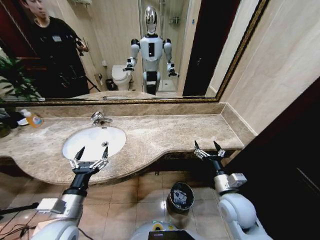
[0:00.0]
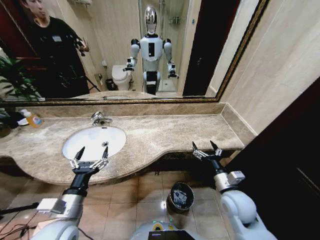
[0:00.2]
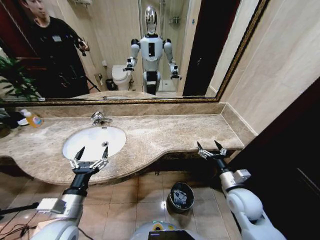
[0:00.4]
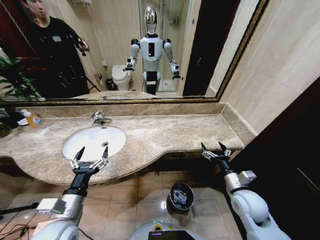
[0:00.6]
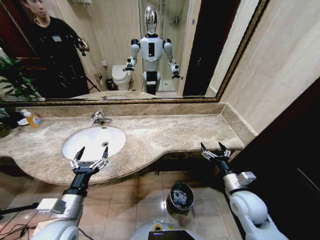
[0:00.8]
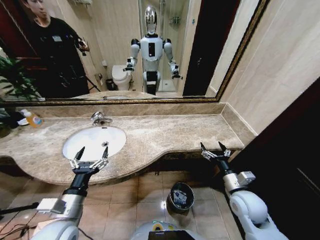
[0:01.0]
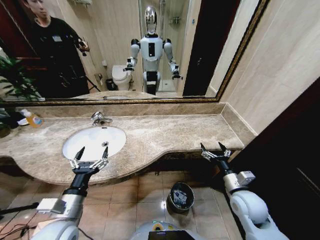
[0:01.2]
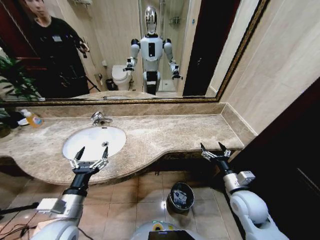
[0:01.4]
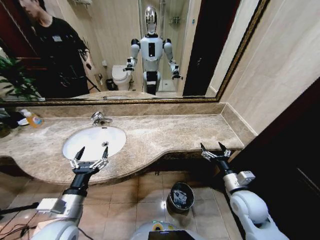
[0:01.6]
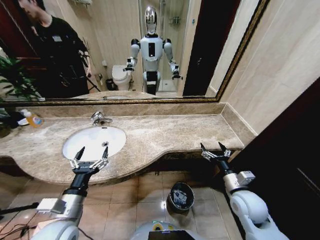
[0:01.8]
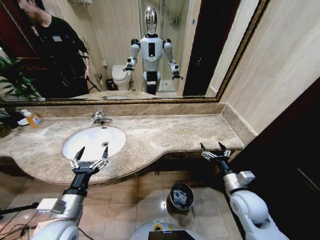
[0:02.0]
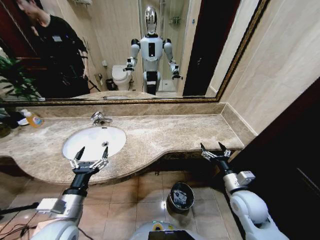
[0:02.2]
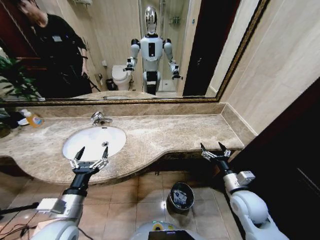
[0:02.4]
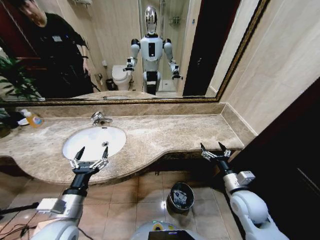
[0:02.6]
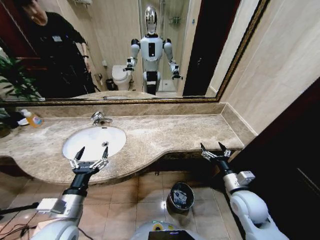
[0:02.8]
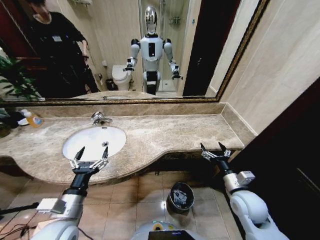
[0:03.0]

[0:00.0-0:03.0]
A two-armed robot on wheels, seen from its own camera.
Task of the whole recording: Pick up the trash from the sink and place it in the trash bin.
0:00.0 to 0:01.6: The right gripper heads to the right, covering about 5 cm.
0:01.6 to 0:03.0: Both grippers stay about where they are.

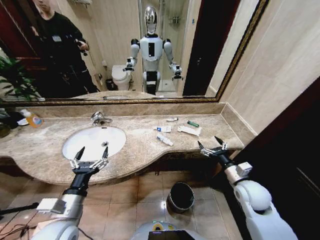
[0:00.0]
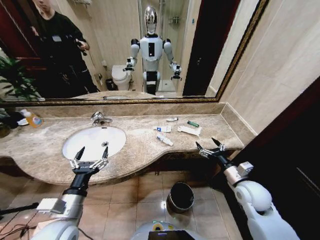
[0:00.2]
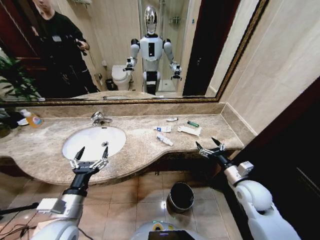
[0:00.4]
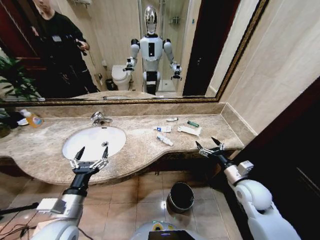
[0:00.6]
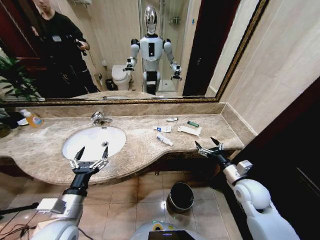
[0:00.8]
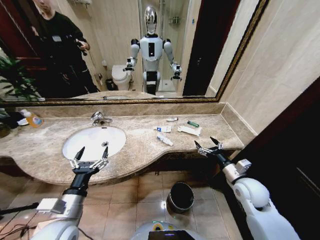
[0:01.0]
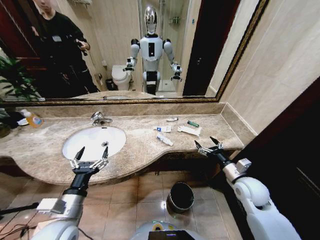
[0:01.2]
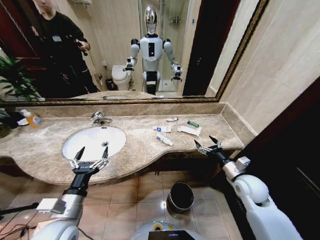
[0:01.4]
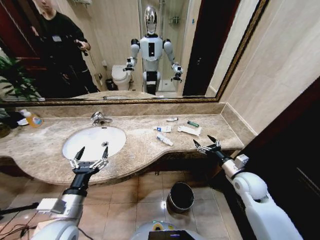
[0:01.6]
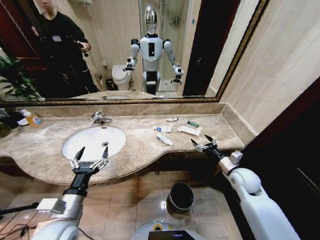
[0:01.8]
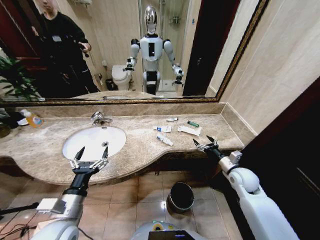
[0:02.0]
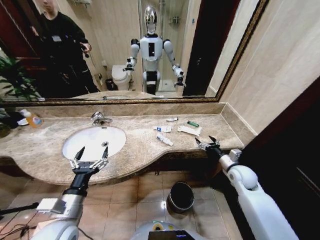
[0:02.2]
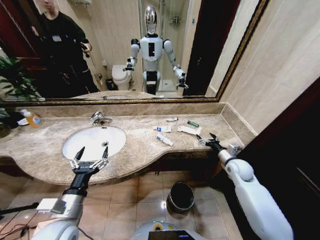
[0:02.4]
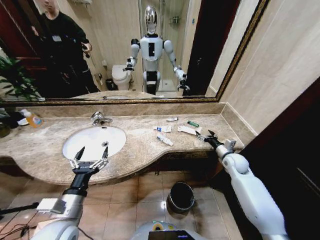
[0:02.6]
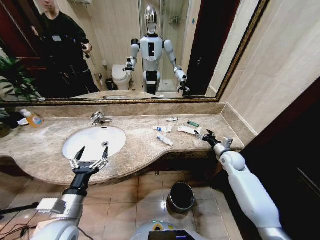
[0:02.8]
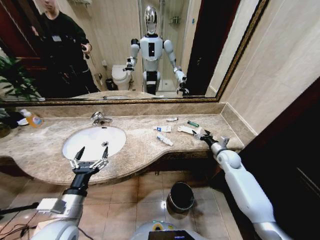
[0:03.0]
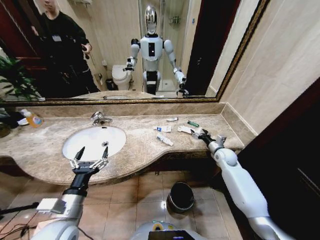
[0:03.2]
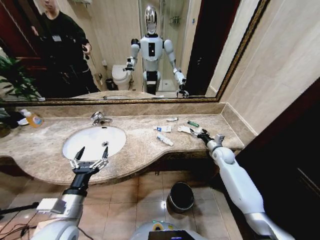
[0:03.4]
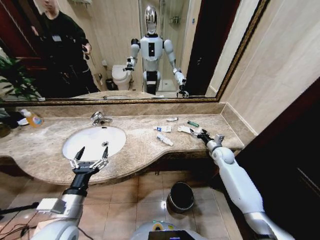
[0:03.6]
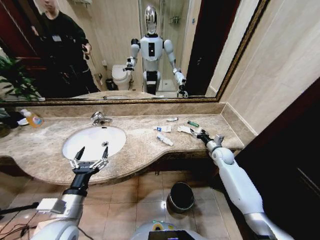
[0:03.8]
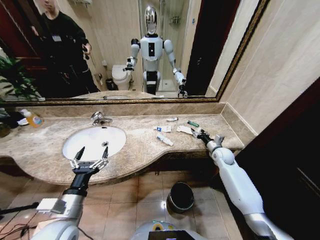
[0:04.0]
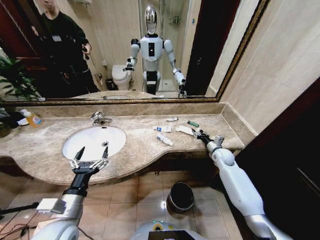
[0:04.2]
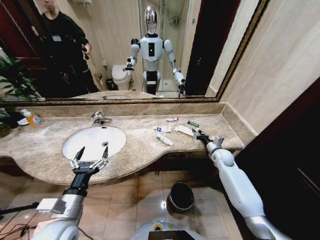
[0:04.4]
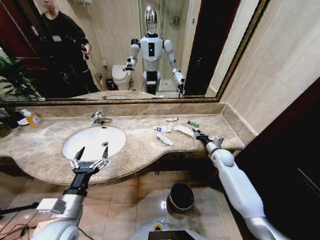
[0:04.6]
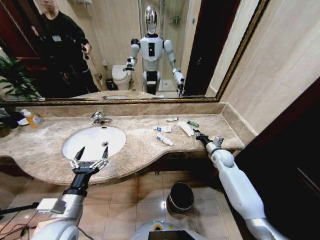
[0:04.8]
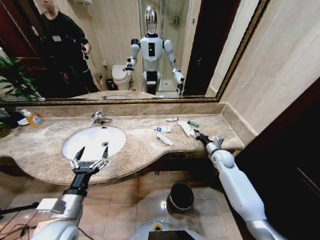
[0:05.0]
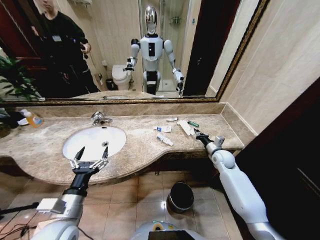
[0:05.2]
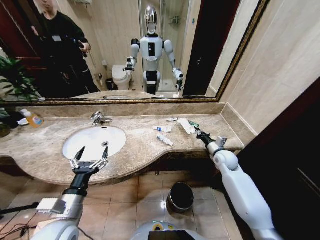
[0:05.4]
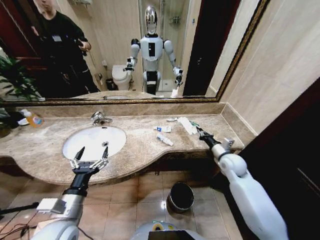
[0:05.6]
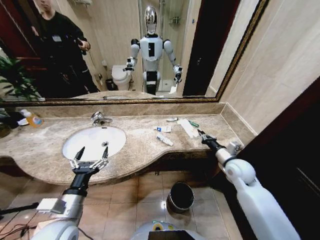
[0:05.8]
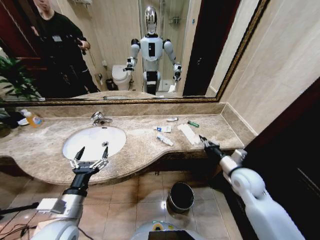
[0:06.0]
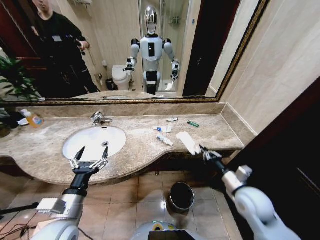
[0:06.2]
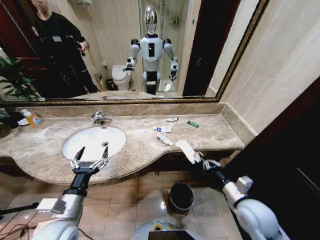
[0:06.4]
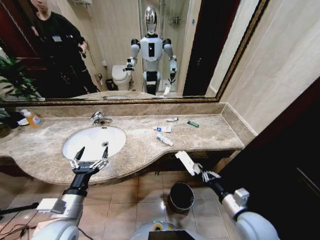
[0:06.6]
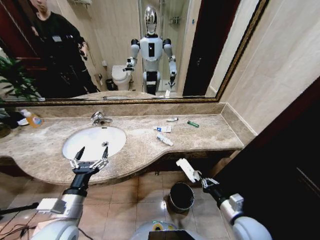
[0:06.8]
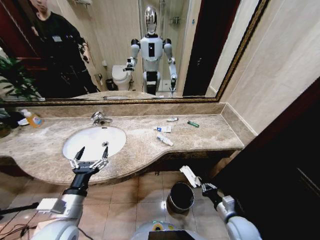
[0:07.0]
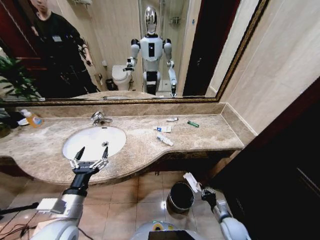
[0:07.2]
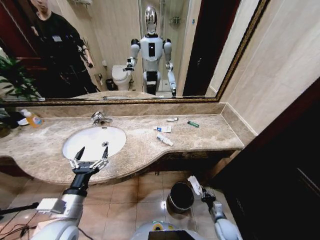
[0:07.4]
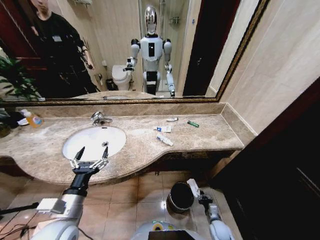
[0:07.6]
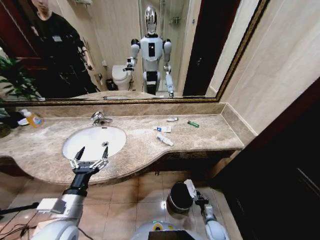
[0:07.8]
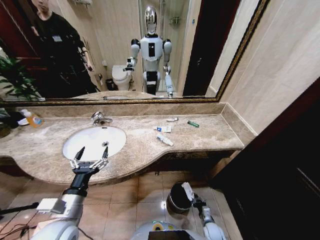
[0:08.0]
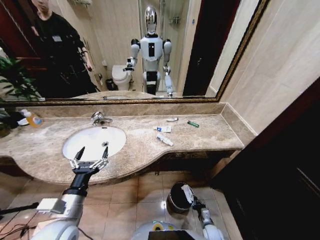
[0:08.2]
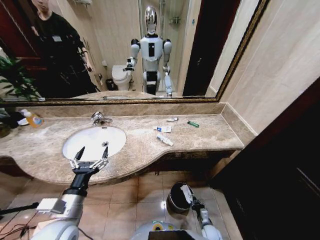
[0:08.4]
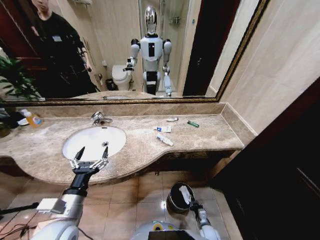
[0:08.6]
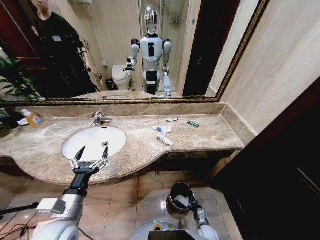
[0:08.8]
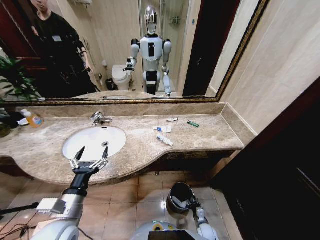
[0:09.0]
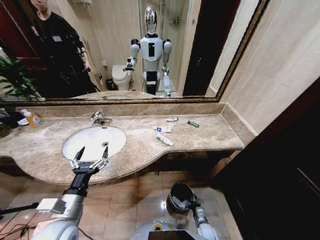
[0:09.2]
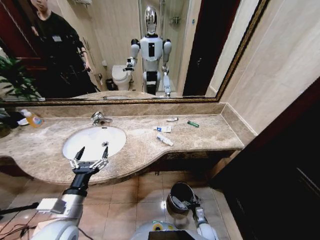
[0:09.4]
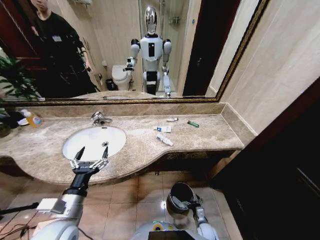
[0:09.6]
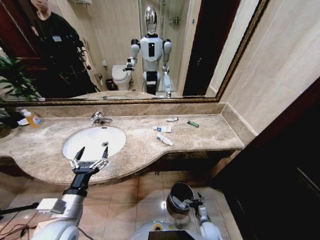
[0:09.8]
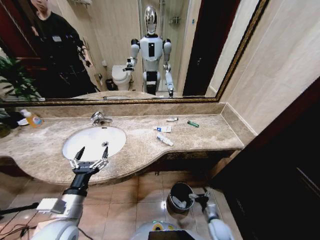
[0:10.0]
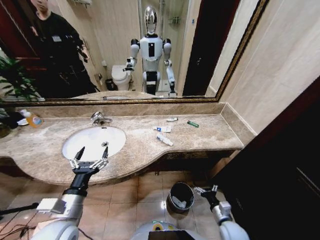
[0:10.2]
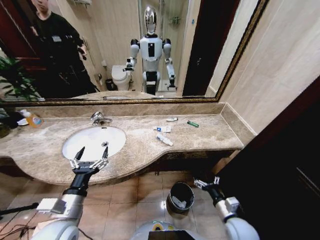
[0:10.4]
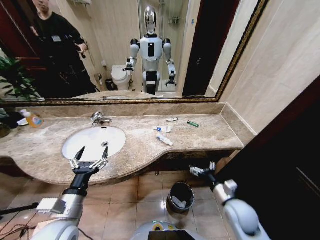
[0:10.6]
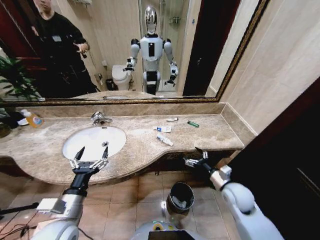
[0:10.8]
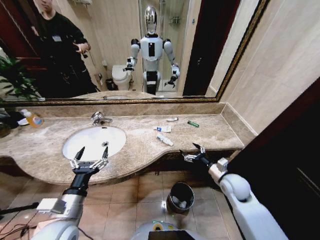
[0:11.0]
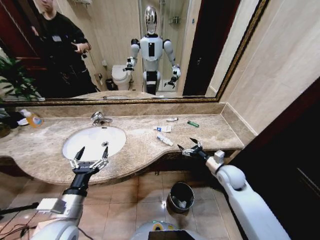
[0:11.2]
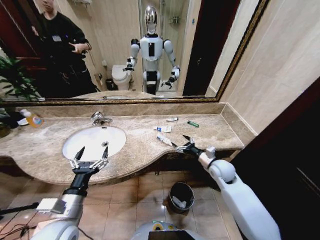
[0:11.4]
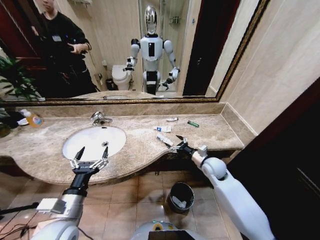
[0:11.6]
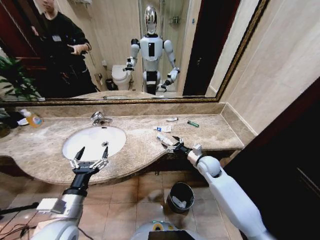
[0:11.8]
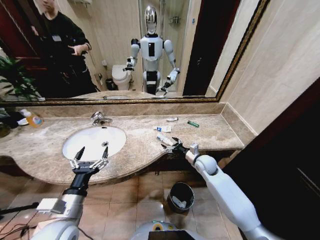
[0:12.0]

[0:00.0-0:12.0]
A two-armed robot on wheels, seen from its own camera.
Task of the whole recording: Pick up the trash from the sink and place it in the trash bin.
0:01.6 to 0:03.0: The right gripper shifts roughly 15 cm forward.
0:03.0 to 0:04.4: The right gripper closes its fingers.
0:04.4 to 0:06.0: The right gripper goes about 20 cm backward and upward, and closes.
0:06.0 to 0:07.6: The right gripper heads downward, covering some 35 cm.
0:07.6 to 0:09.0: The right gripper travels to the left by some 5 cm, and opens.
0:09.0 to 0:10.4: The right gripper moves upward, about 25 cm, and opens its fingers.
0:10.4 to 0:12.0: The right gripper is displaced forward by approximately 25 cm.

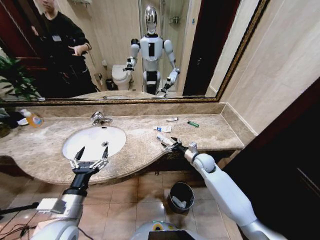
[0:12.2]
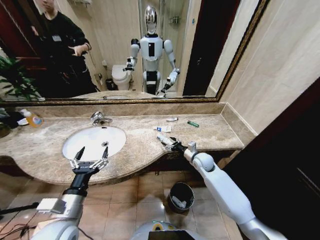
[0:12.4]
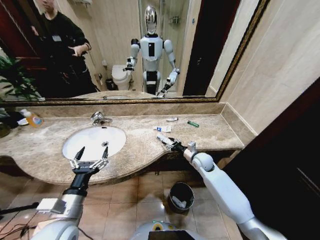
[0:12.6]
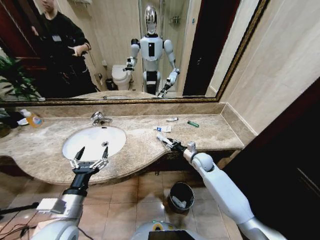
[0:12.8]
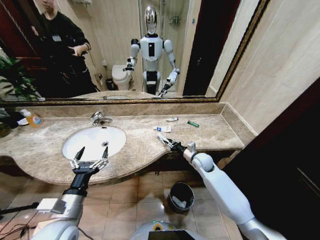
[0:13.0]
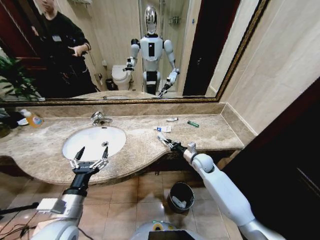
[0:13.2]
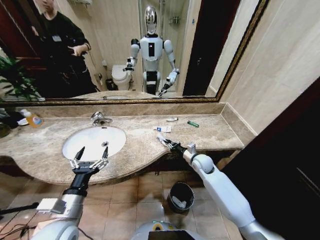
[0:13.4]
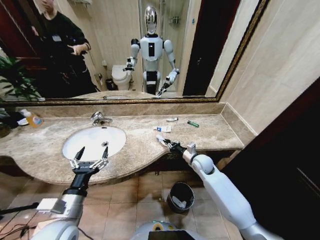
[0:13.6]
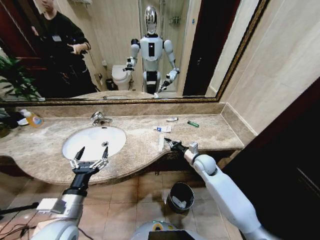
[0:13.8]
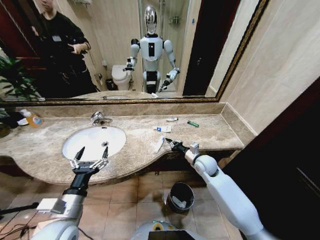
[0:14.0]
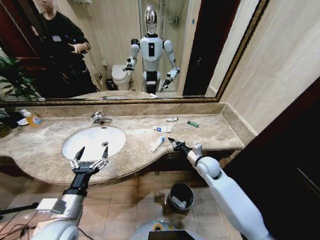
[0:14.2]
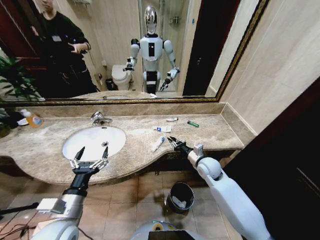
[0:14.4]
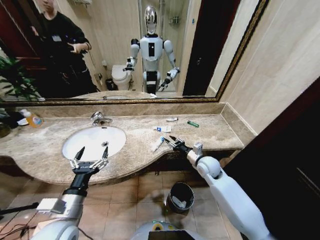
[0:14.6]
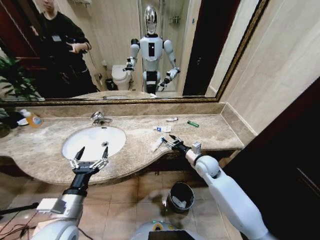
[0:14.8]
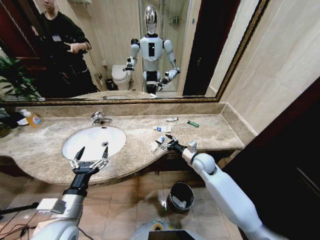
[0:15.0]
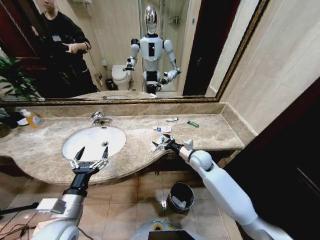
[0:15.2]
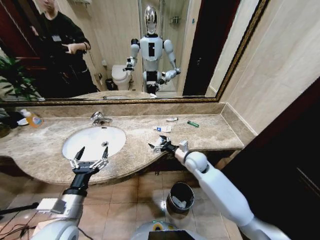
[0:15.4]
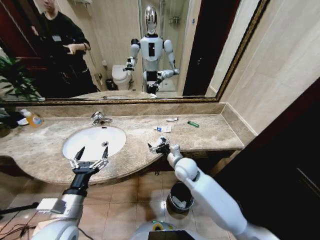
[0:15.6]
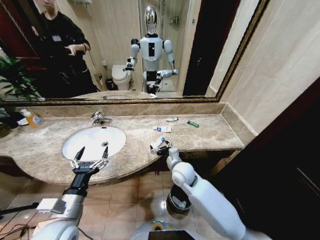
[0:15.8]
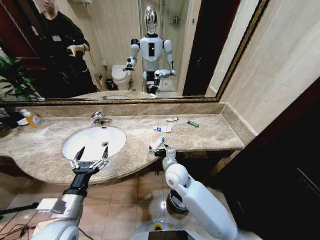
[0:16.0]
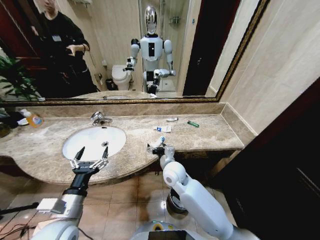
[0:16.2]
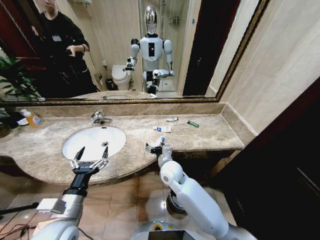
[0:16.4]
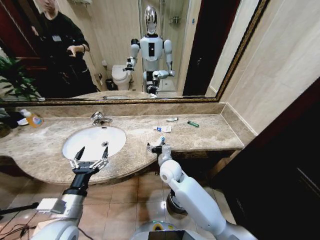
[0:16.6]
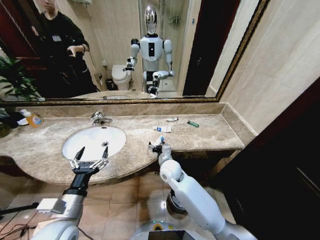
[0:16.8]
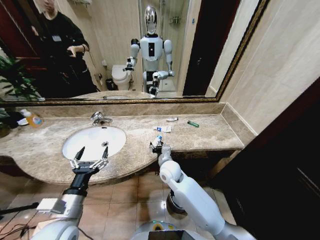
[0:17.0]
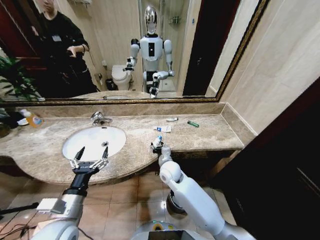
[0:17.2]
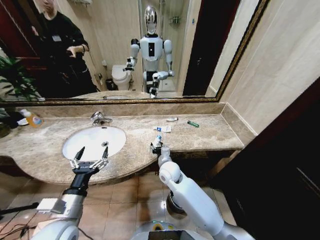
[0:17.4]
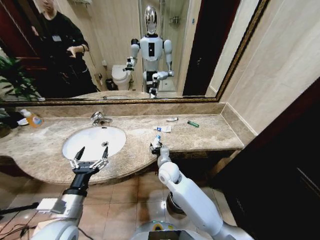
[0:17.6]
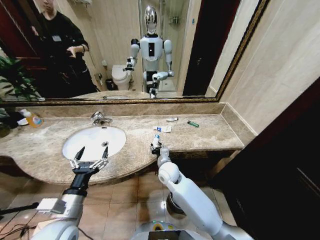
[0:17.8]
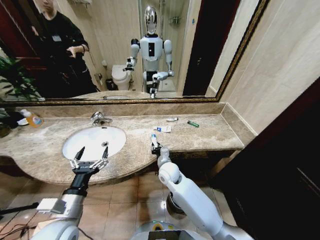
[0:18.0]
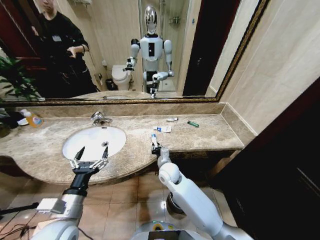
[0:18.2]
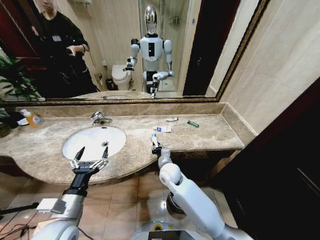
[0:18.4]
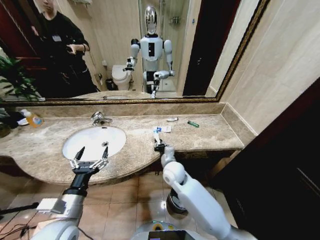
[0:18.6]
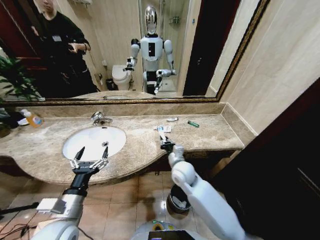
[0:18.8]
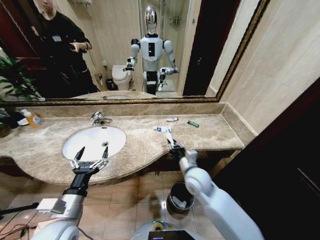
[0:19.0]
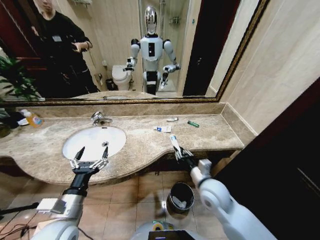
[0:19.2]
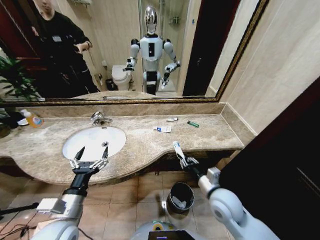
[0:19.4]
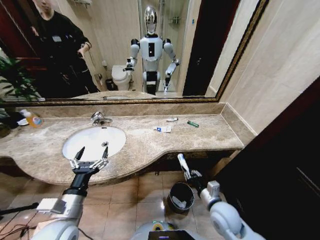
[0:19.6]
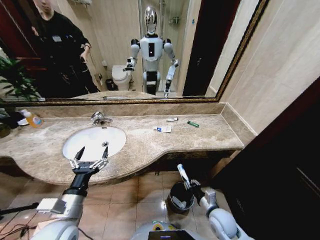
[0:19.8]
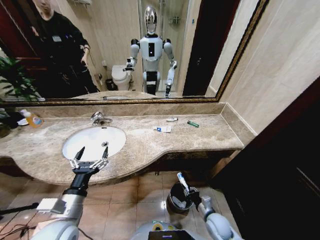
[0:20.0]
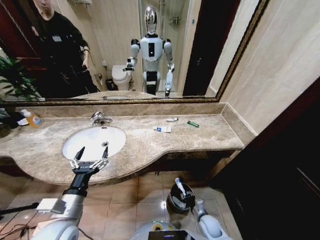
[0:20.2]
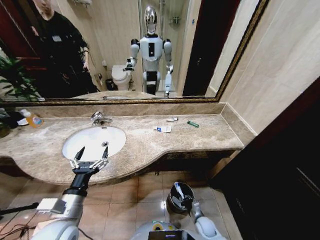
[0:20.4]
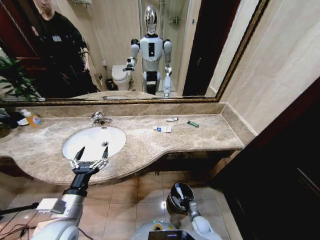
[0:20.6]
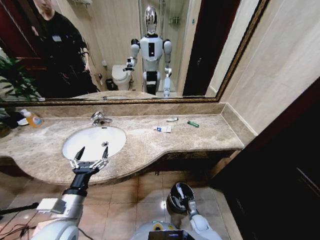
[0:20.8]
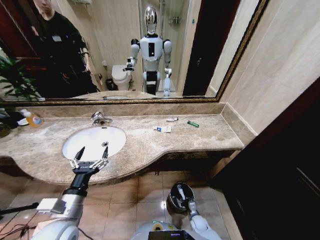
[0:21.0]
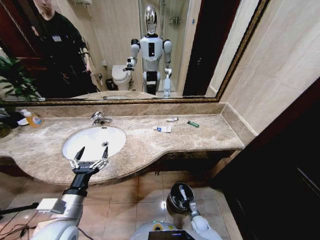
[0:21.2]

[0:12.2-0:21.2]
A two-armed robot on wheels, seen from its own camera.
Task of the whole recording: Pick up the trash from the sink and place it in the trash bin.
0:12.2 to 0:13.8: The right gripper closes its fingers.
0:13.8 to 0:15.2: The right gripper opens its fingers.
0:15.2 to 0:16.6: The right gripper heads to the left, covering roughly 15 cm.
0:16.6 to 0:18.2: The right gripper closes its fingers.
0:18.2 to 0:19.8: The right gripper moves to the right and backward, some 25 cm.
0:19.8 to 0:21.2: The right gripper travels downward by approximately 25 cm.
